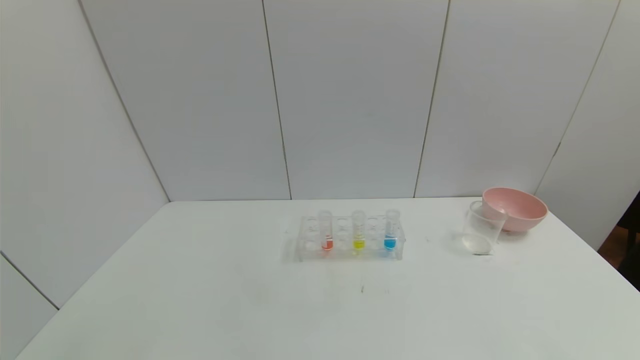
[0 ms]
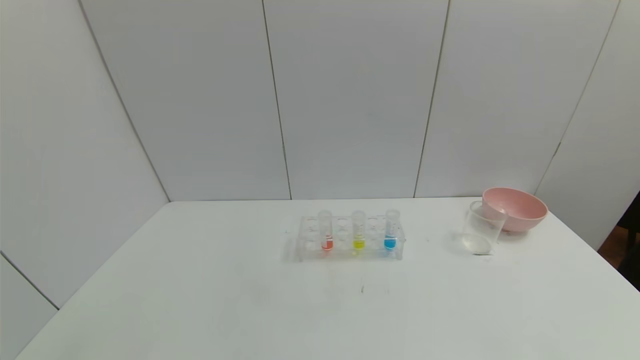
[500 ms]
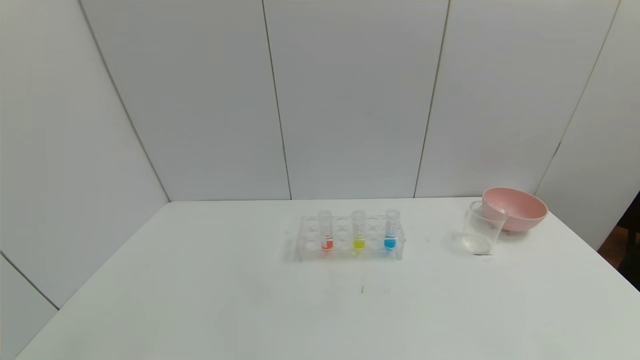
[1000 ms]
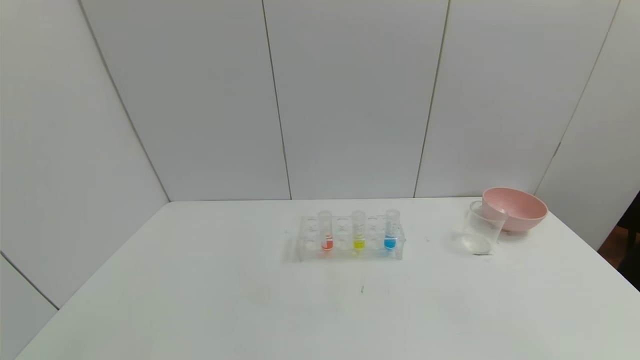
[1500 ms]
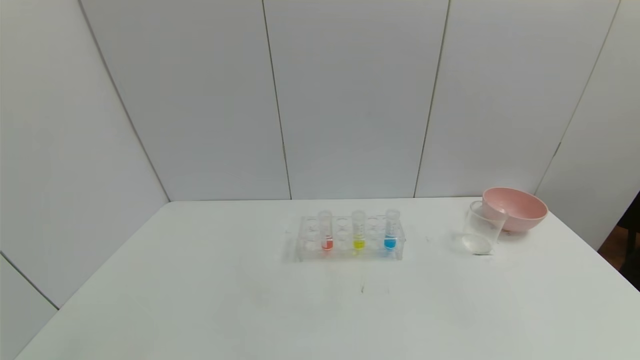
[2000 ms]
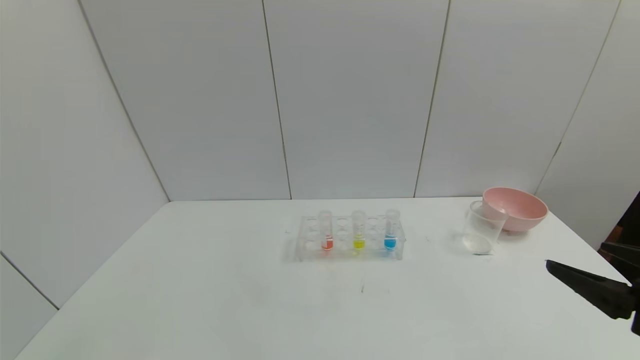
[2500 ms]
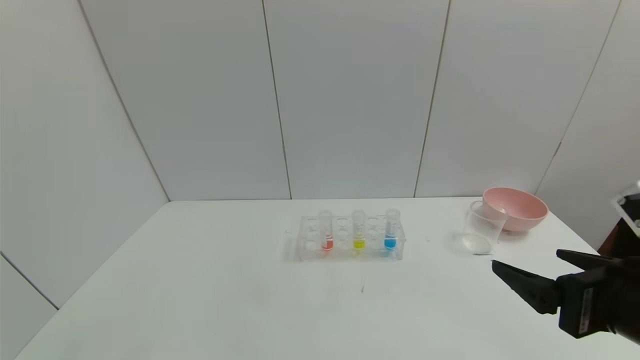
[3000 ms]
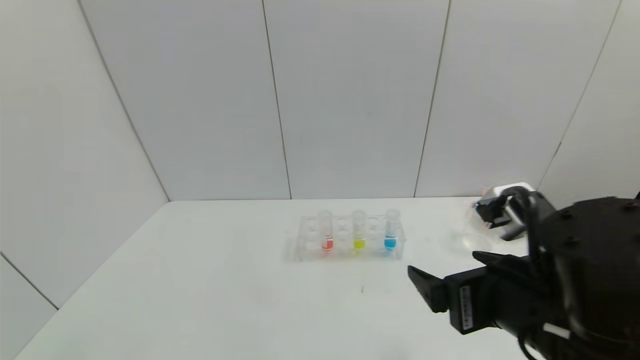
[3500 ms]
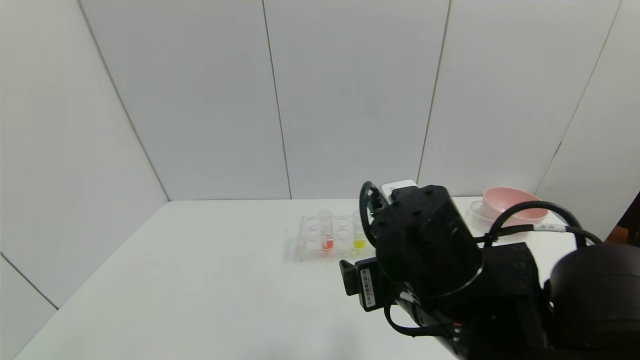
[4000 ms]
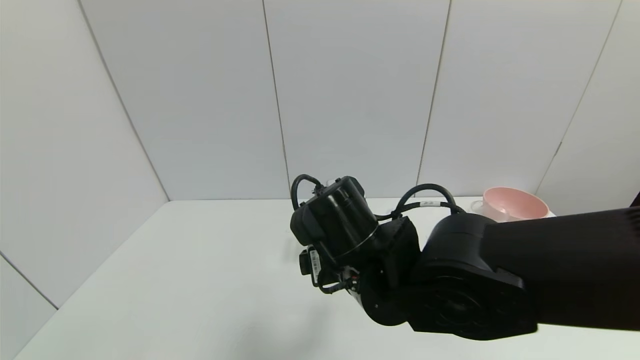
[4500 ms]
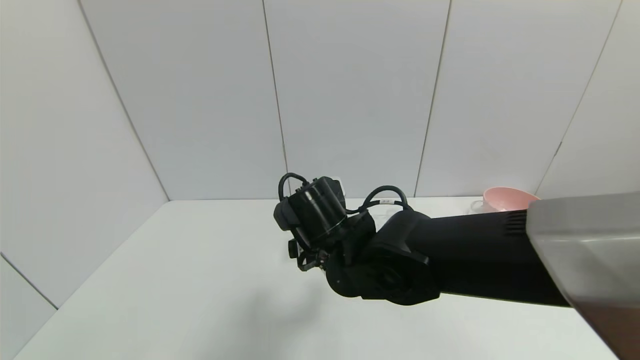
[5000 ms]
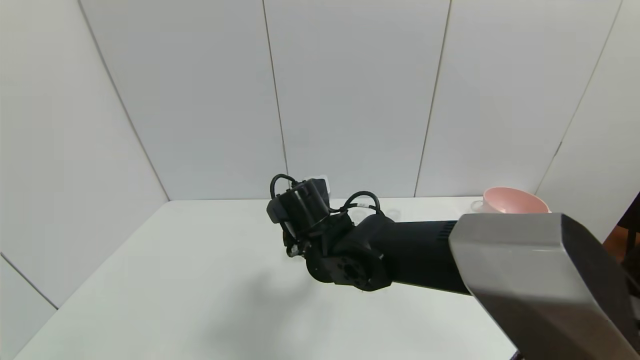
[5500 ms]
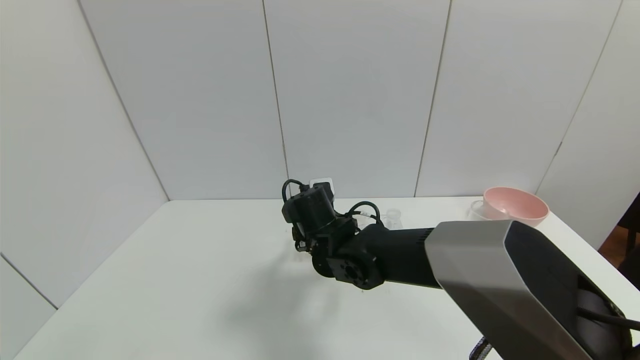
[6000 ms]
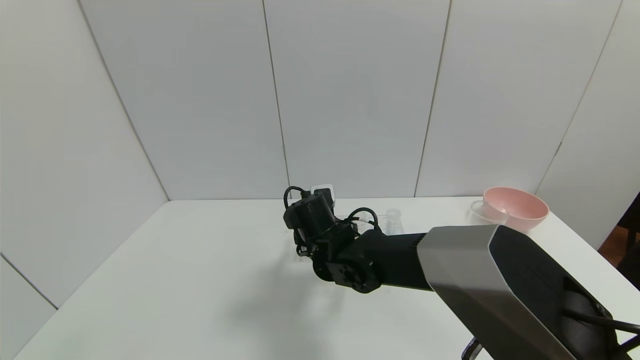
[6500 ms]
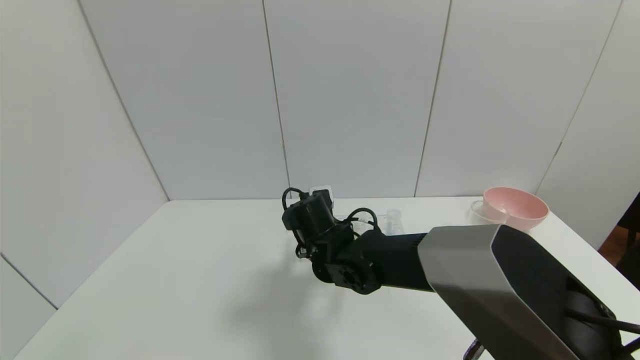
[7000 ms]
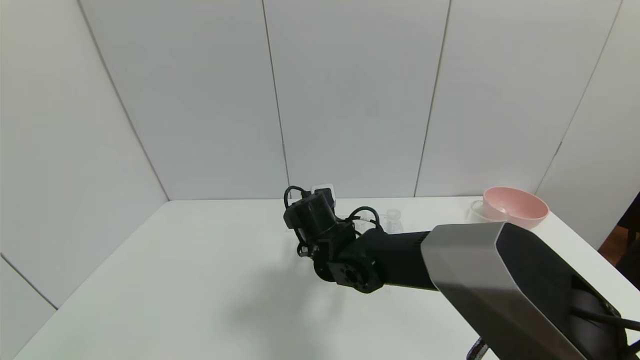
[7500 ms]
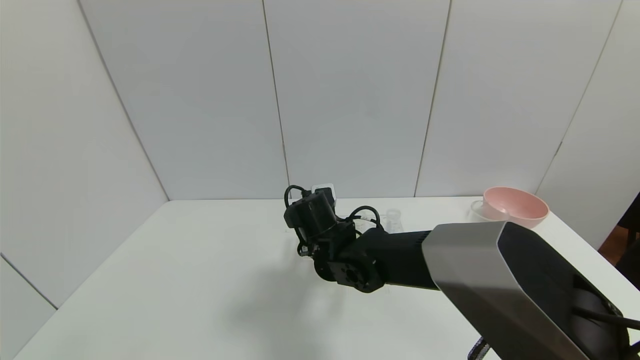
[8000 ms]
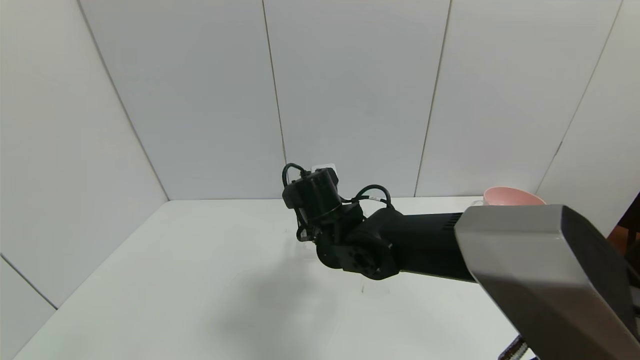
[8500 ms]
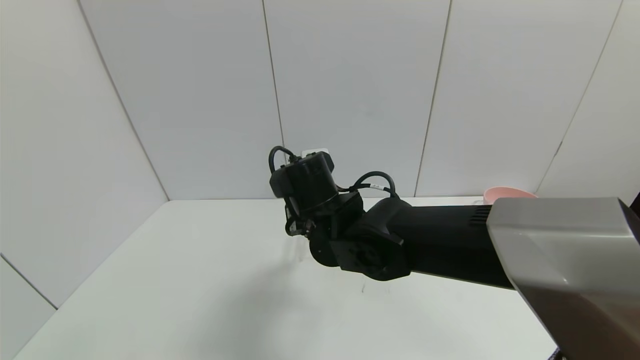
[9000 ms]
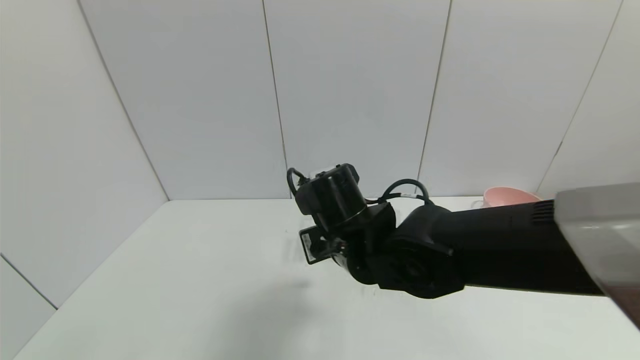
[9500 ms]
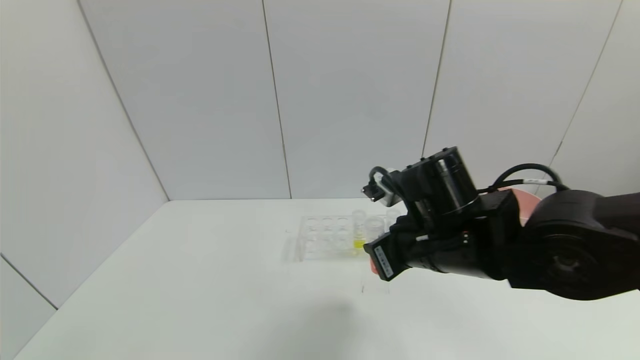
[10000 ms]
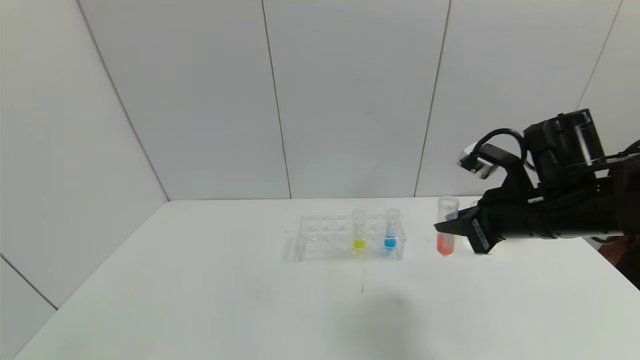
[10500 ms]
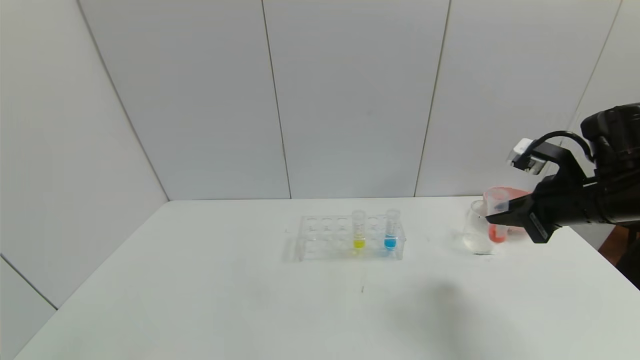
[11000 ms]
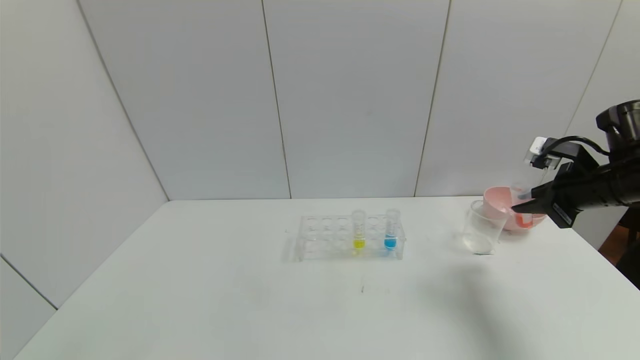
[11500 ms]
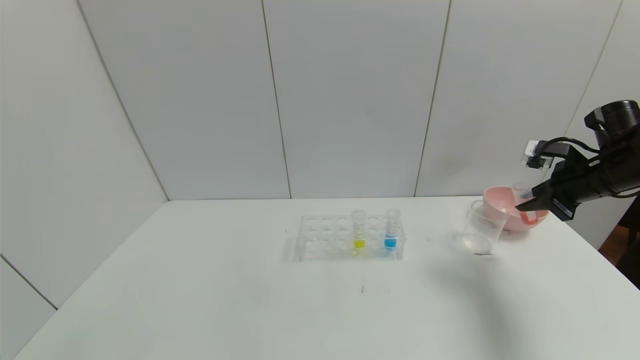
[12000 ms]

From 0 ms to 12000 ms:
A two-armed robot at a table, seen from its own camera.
Task of the whole recording: pick up the test tube with yellow pigment and the test tube with red pigment by grippers and pour them into the beaker.
Step, from 0 ms to 7000 ms: Grasp the red reagent with the right gripper.
From 2000 ms to 4000 ms: The right gripper goes roughly 30 cm to the left and forward.
From 4000 ms to 6000 ms: The right gripper goes approximately 20 cm forward, to the left and downward.
From 6000 ms to 8000 ms: The right gripper closes its fingers.
From 8000 ms to 10000 ms: The right gripper heads to the right, upward and backward, covering some 20 cm.
From 10000 ms to 12000 ms: The right gripper travels to the right by some 30 cm.

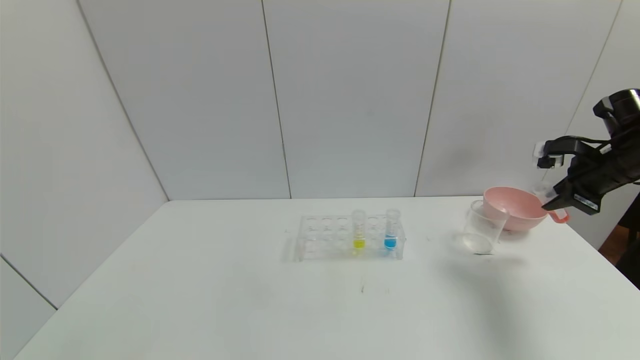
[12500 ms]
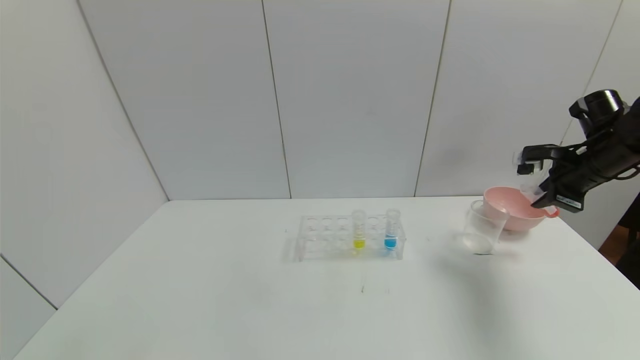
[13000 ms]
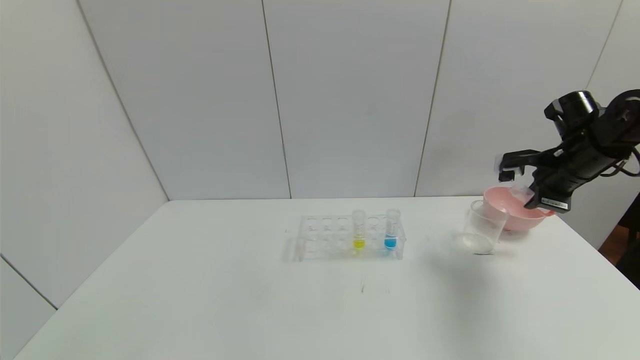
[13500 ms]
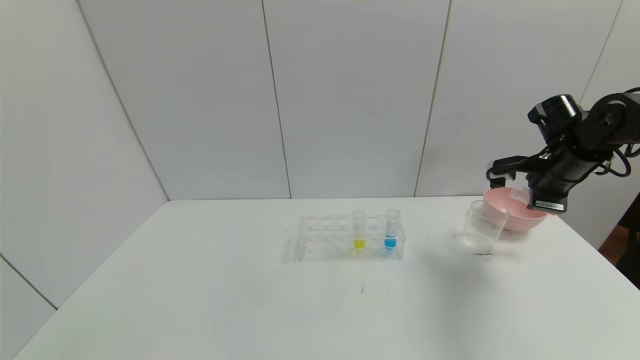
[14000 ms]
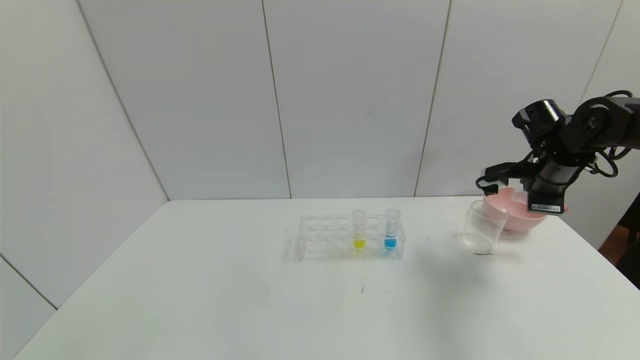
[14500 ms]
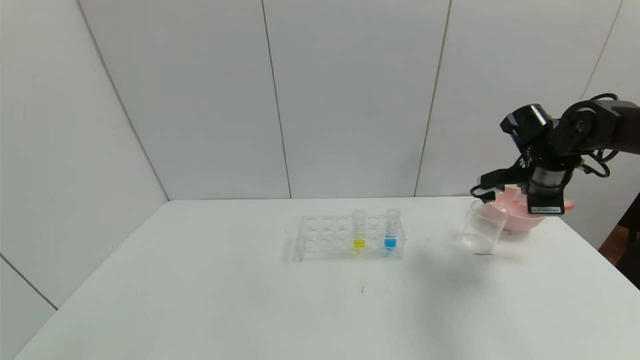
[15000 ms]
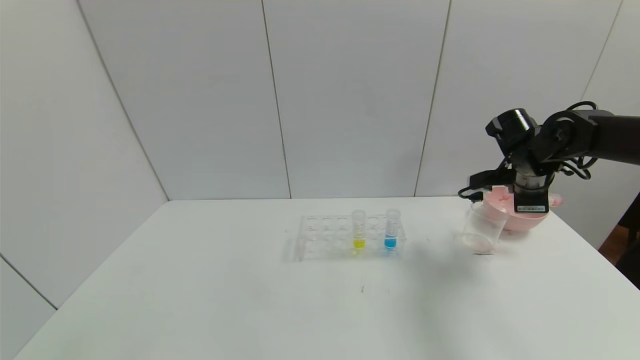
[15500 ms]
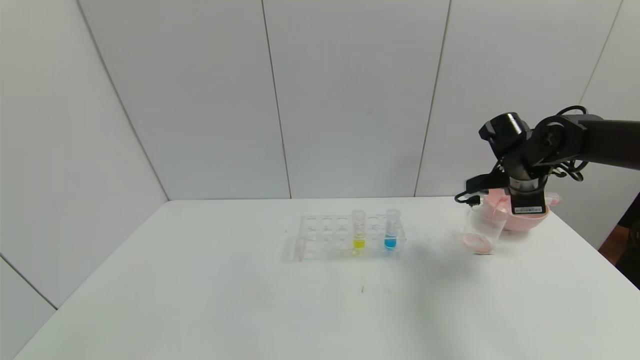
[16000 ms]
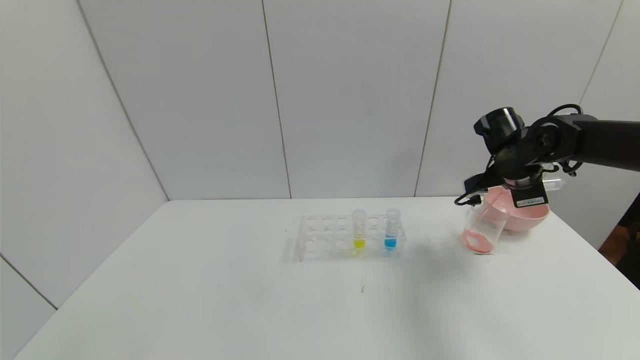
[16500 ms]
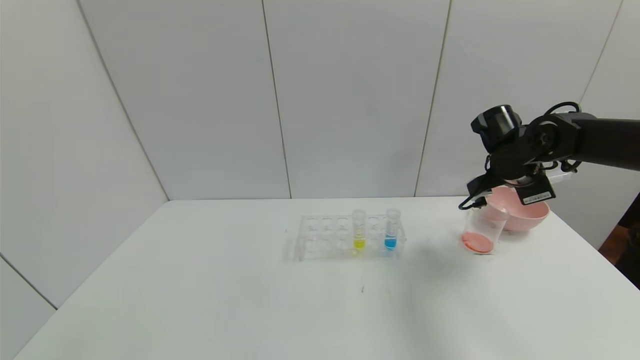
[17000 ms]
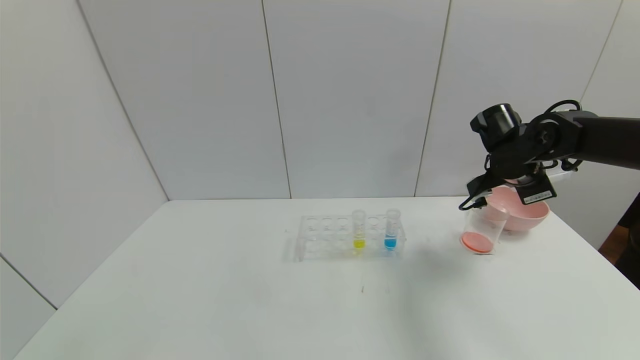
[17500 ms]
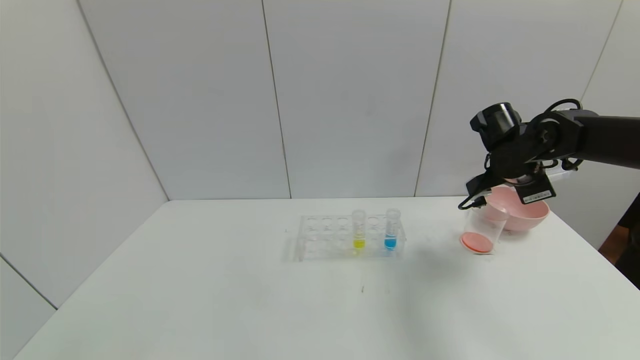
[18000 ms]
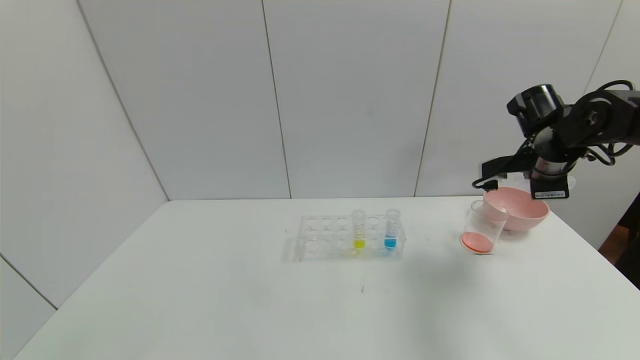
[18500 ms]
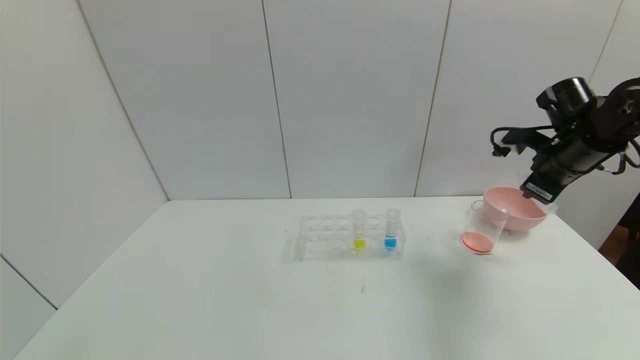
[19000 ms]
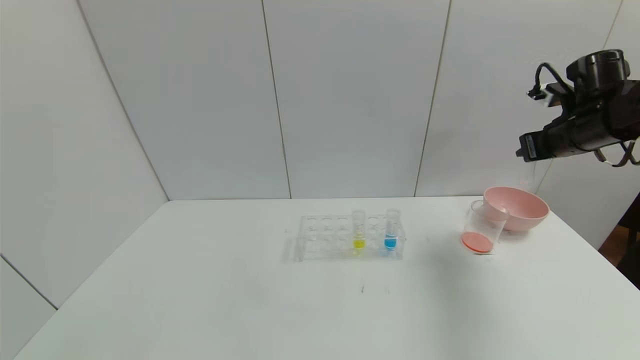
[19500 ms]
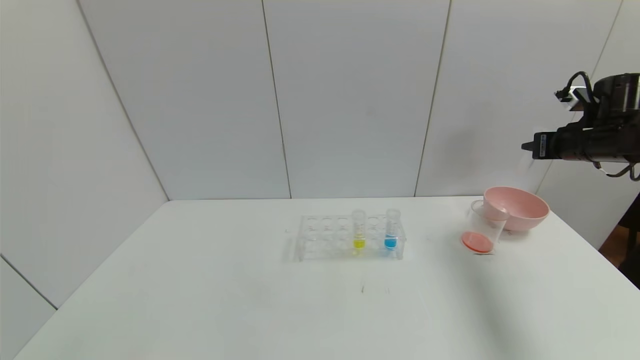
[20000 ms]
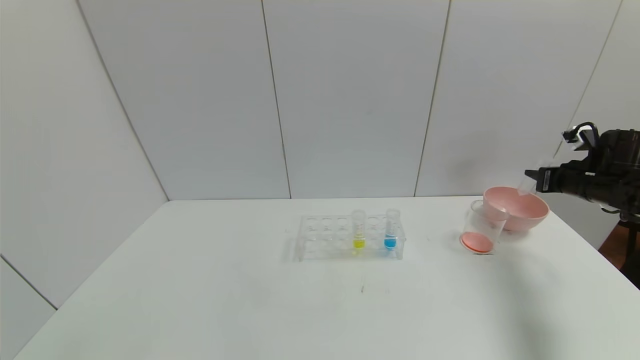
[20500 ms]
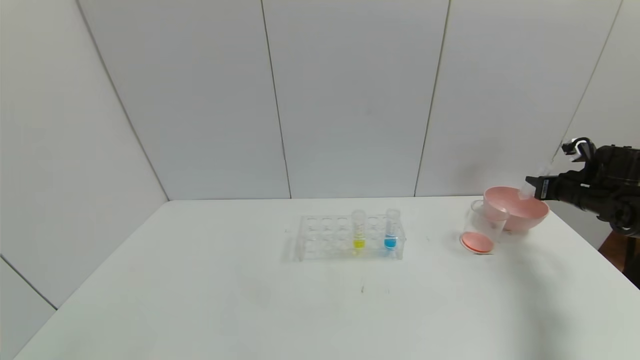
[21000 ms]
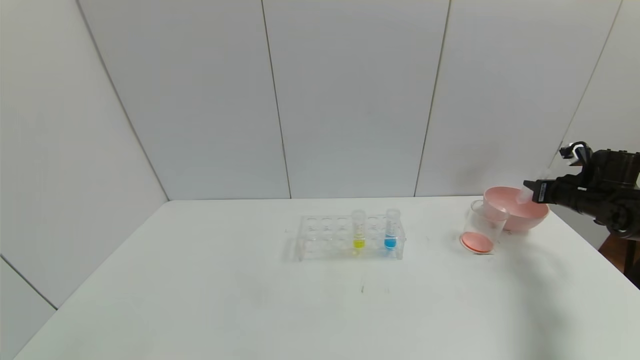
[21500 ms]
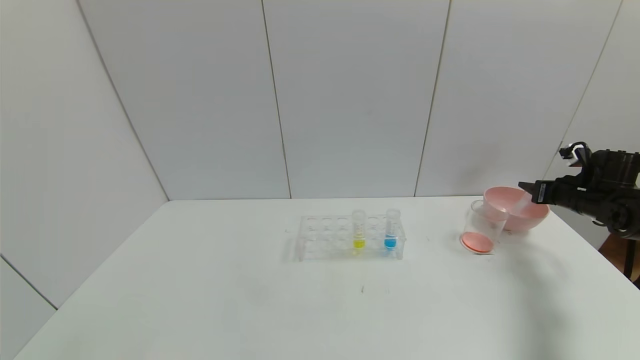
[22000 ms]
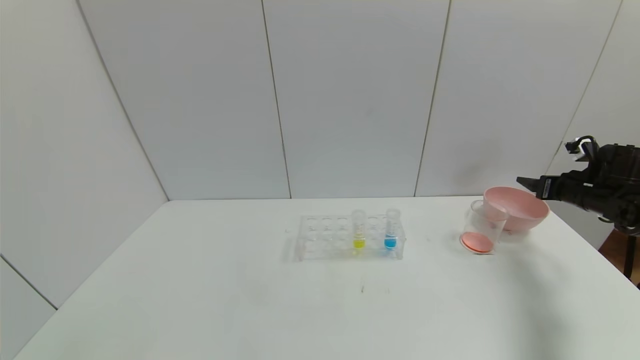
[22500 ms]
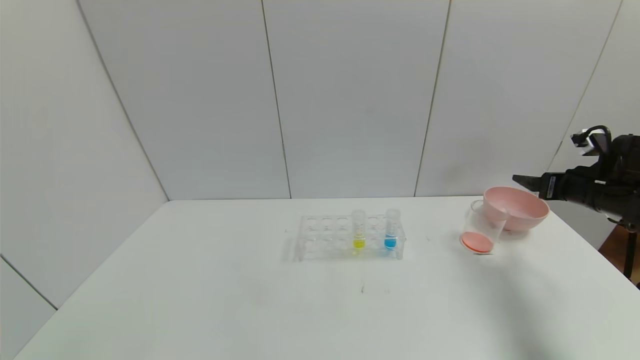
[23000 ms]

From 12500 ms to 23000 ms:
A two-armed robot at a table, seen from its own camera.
Task of the whole recording: pick up the test tube with yellow pigment and the test tube with red pigment by grippers and pour them into the beaker.
Step, from 12500 ms to 17000 ms: Pour the red reagent into the graduated cylinder with the right gripper.
Step, from 17500 ms to 22500 ms: Place the test tube into the bowl with the right gripper.
From 12500 ms to 14500 ms: The right gripper moves to the left, about 10 cm.
From 14500 ms to 16500 ms: The right gripper changes place by about 5 cm.
From 16500 ms to 19000 ms: The right gripper travels to the right by approximately 5 cm.
From 19000 ms to 21000 ms: The right gripper shifts some 15 cm to the right and downward.
From 21000 ms to 23000 ms: The right gripper moves backward and to the left, roughly 10 cm, and opens its fingers.
